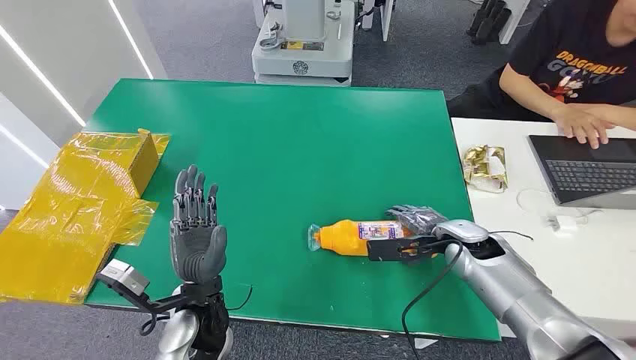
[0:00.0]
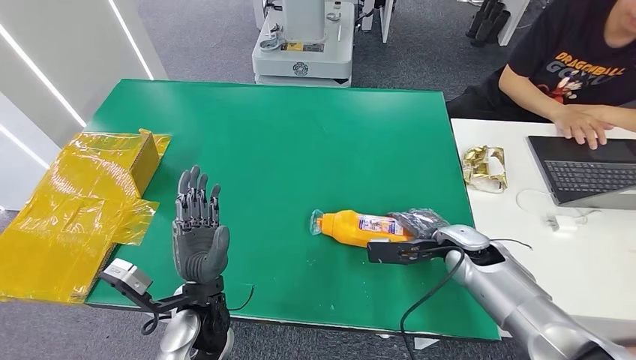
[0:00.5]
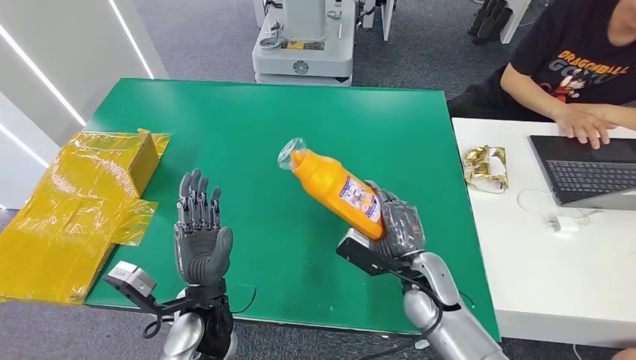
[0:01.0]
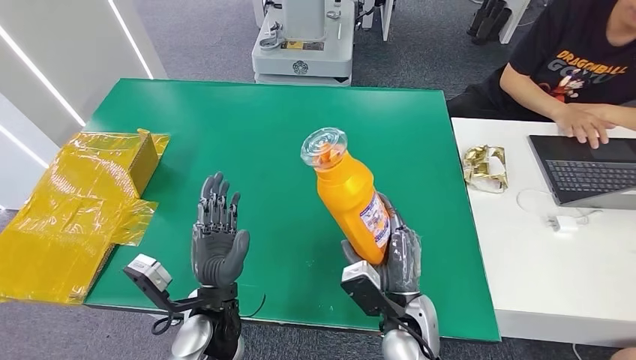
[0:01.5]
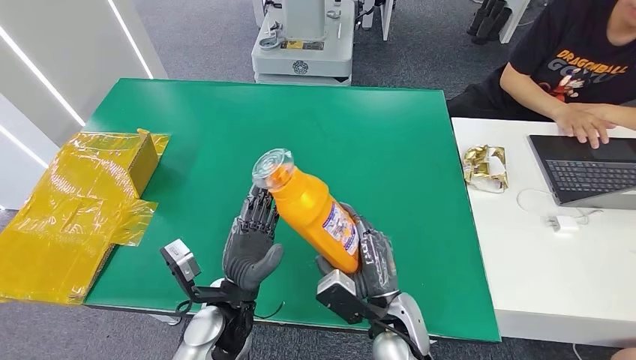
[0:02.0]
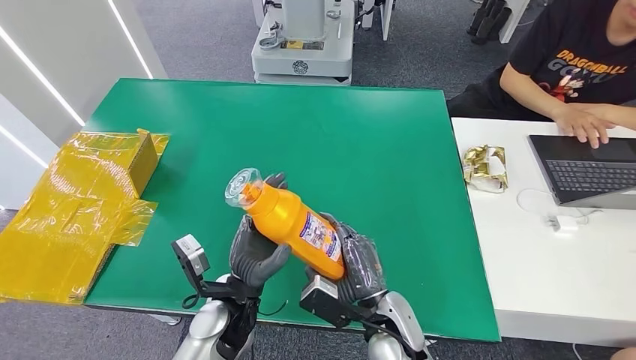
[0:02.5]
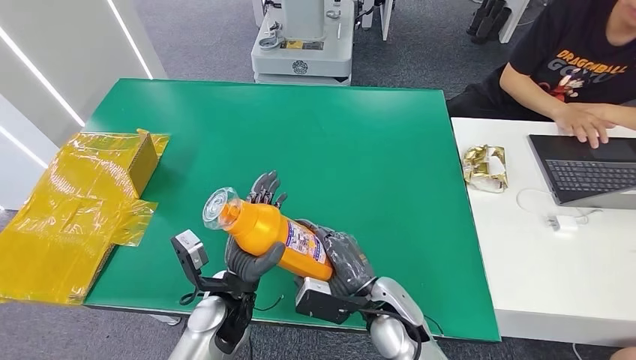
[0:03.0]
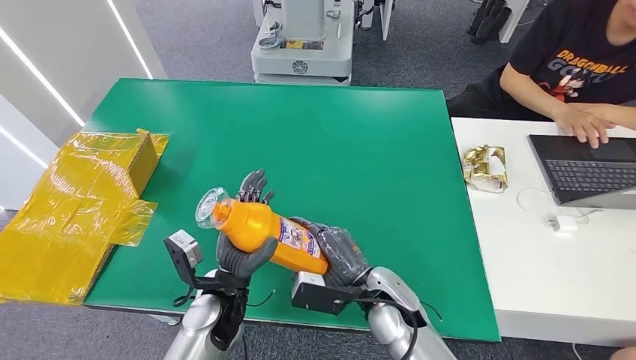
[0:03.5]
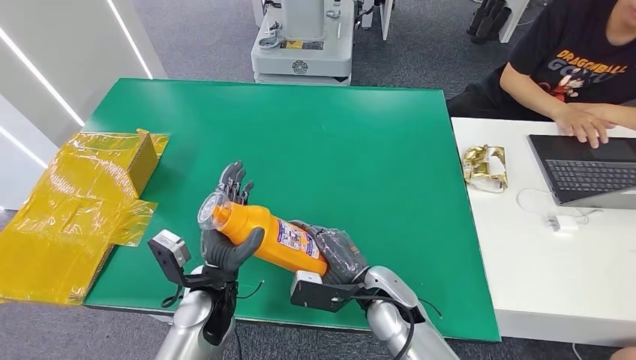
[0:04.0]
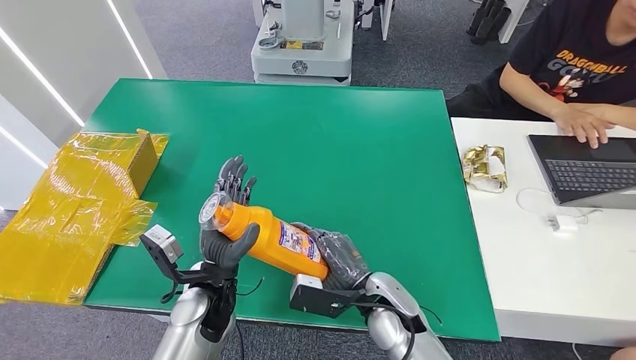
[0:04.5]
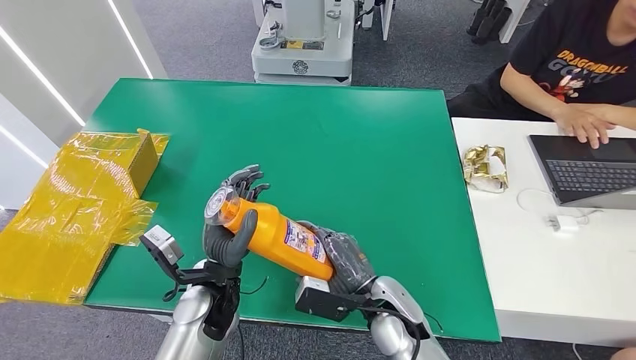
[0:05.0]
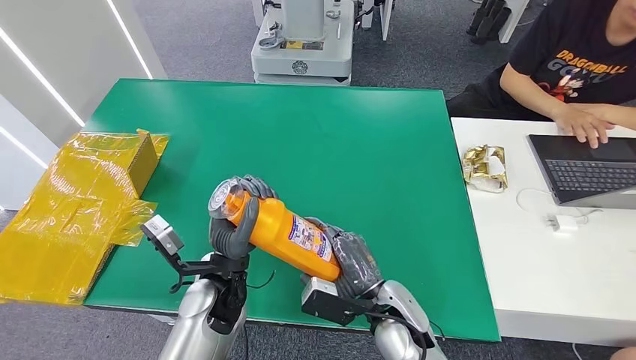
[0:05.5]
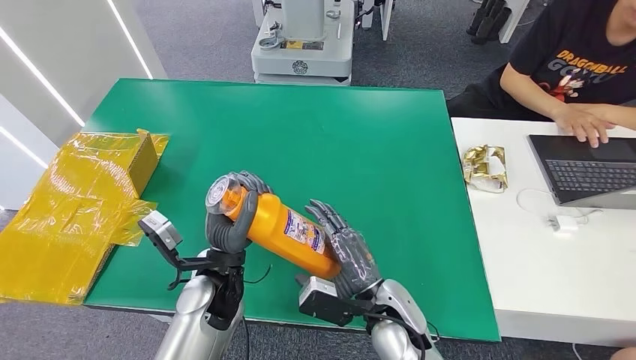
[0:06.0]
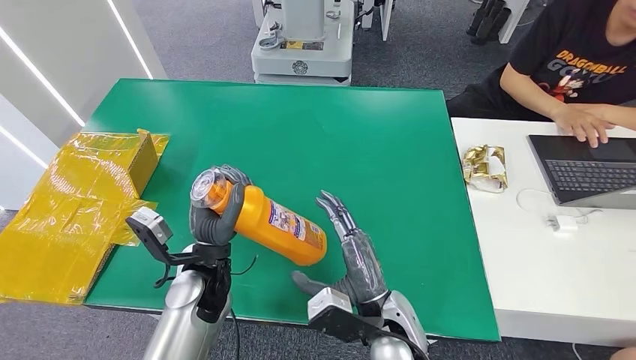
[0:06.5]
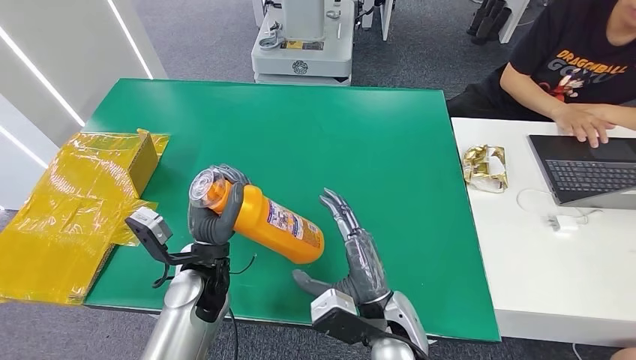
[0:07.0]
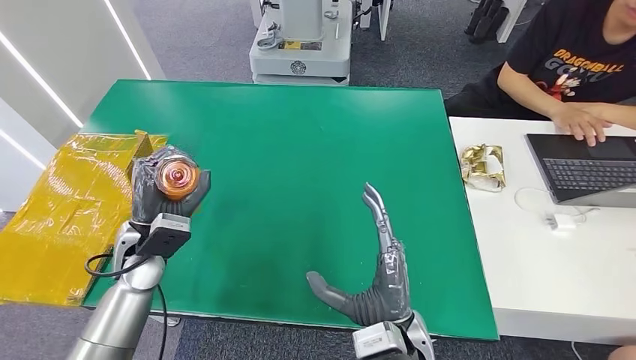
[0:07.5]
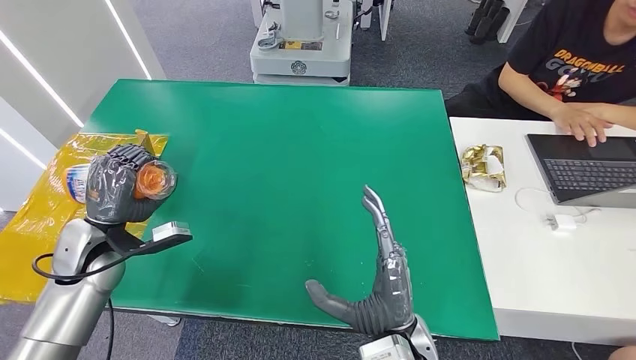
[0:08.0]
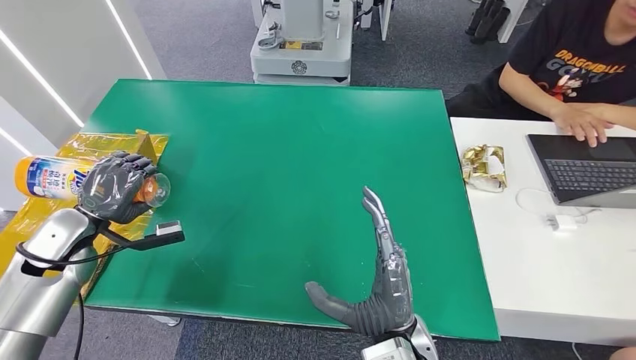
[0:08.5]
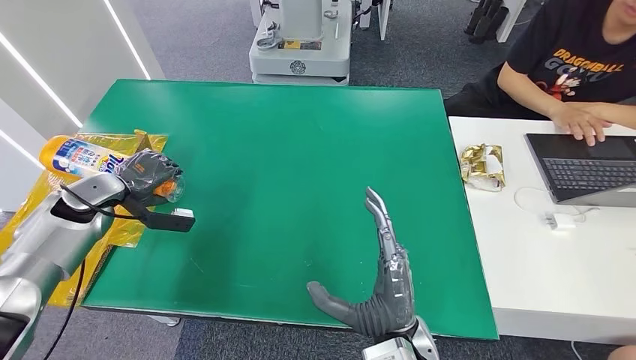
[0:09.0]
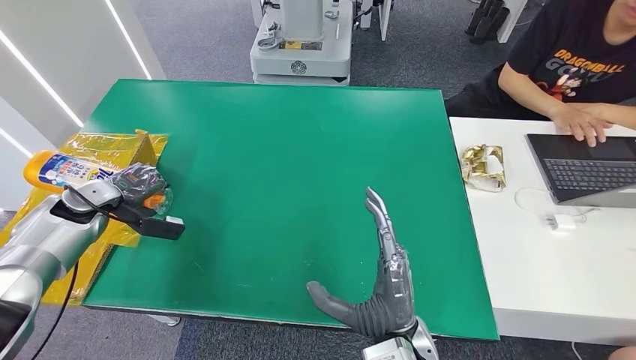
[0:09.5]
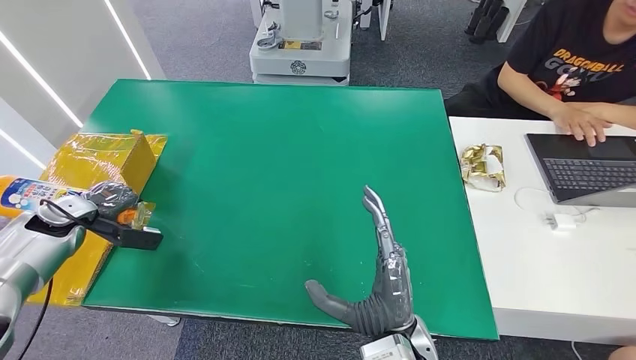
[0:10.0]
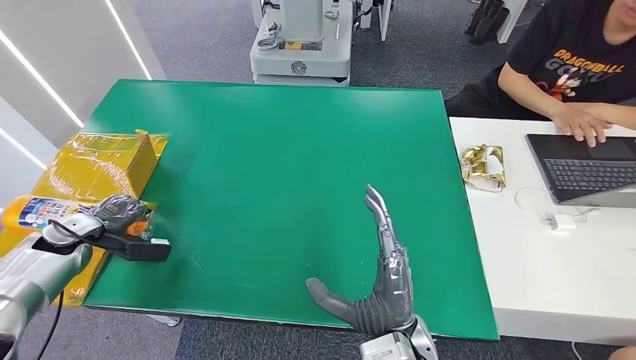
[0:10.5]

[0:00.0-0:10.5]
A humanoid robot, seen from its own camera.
Step, 0:00.0 to 0:02.5: Pick up the bottle from the table.
0:04.0 to 0:06.5: The right hand moves backward, some 5 cm.
0:06.5 to 0:08.5: The left hand heads to the left, covering approximately 25 cm.
0:08.5 to 0:10.5: The left hand moves to the left and downward, approximately 10 cm.

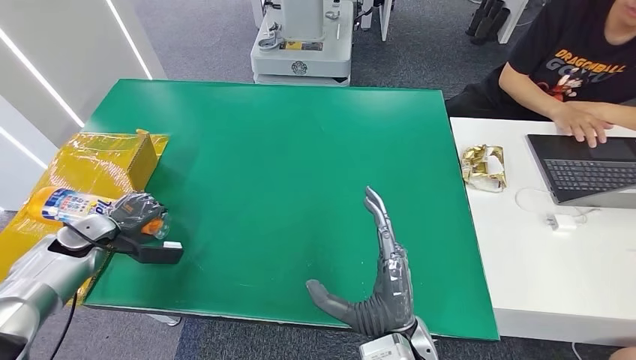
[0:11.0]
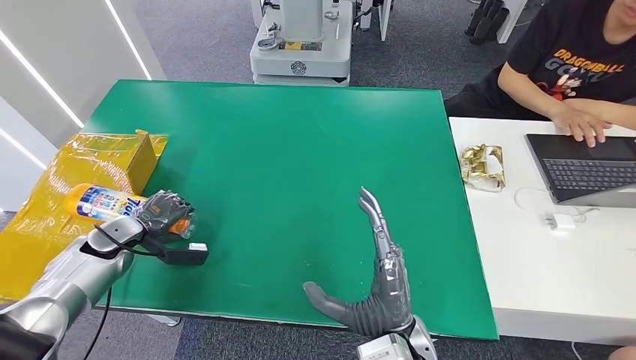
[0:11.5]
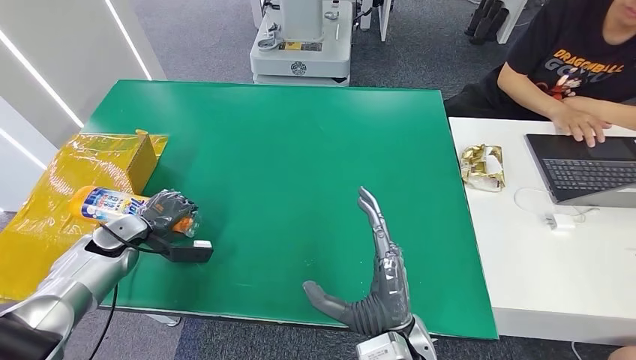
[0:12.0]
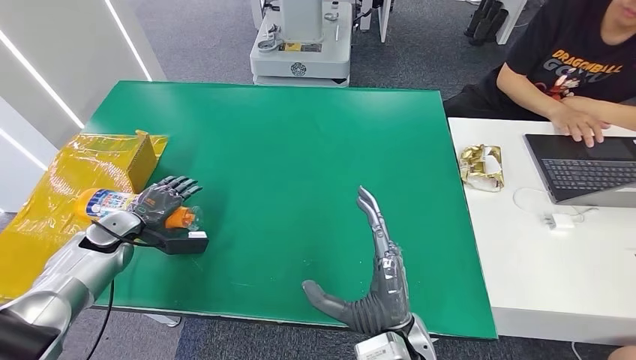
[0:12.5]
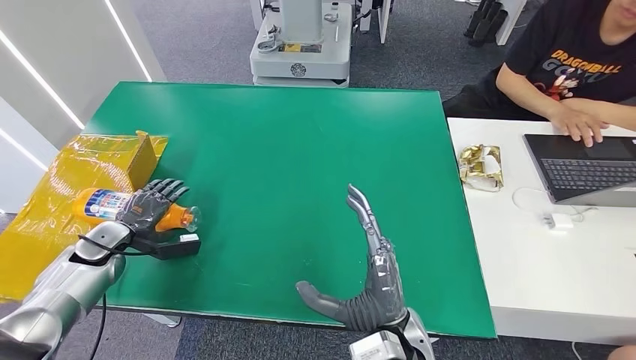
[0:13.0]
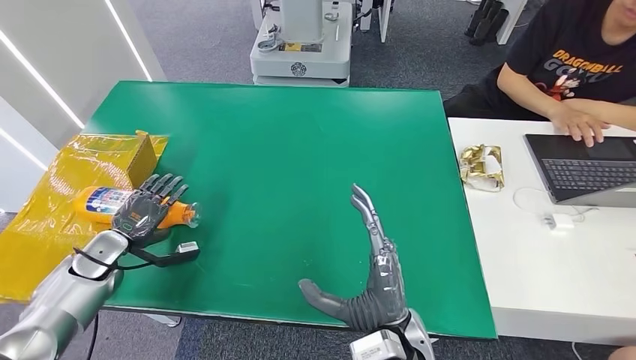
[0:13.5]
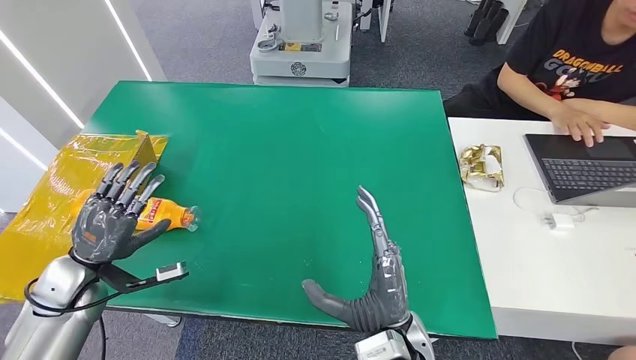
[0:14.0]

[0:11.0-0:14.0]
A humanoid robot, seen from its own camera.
Step, 0:11.0 to 0:14.0: Turn the bottle to the front side.
0:11.0 to 0:12.5: The left hand moves roughly 5 cm.
0:12.5 to 0:14.0: The left hand travels backward by roughly 10 cm.

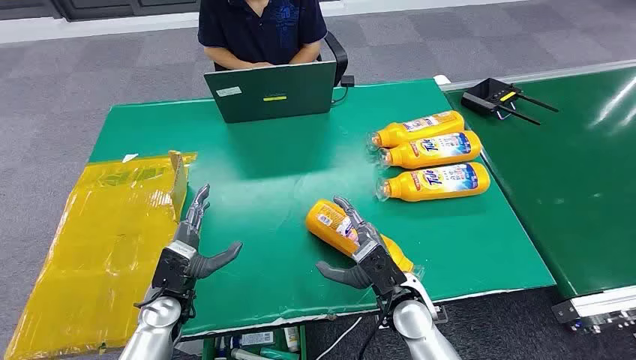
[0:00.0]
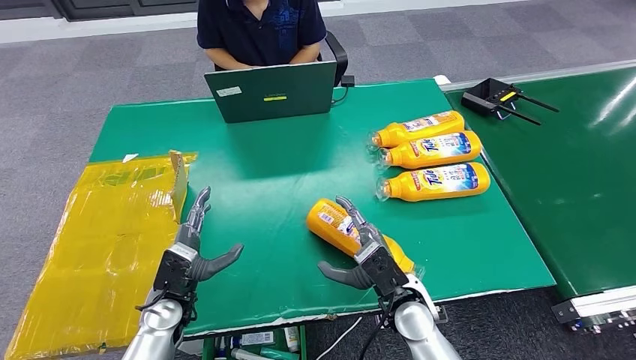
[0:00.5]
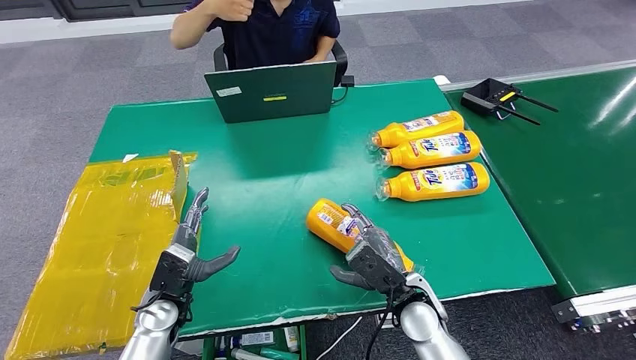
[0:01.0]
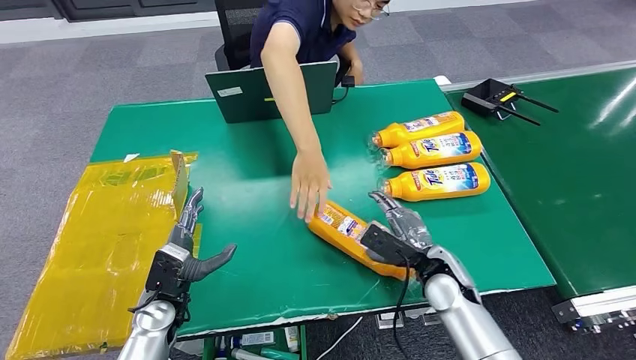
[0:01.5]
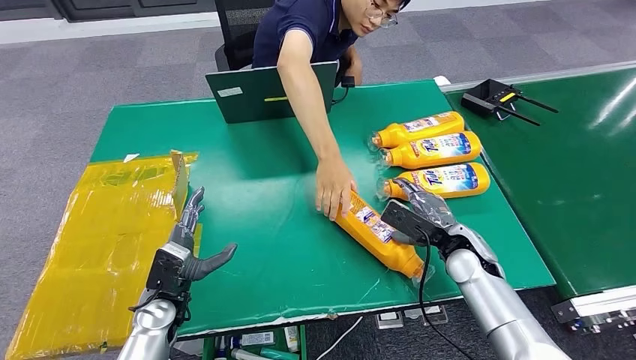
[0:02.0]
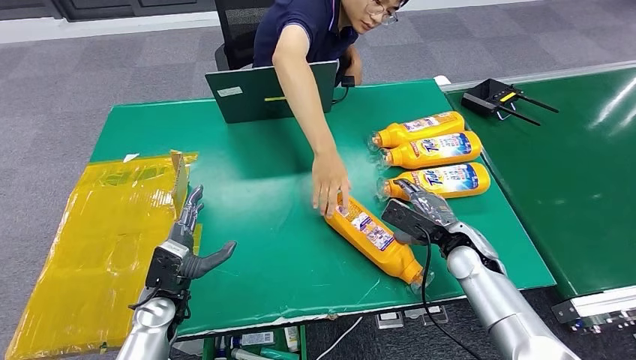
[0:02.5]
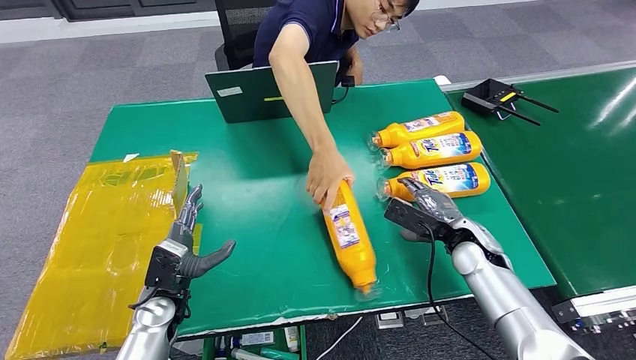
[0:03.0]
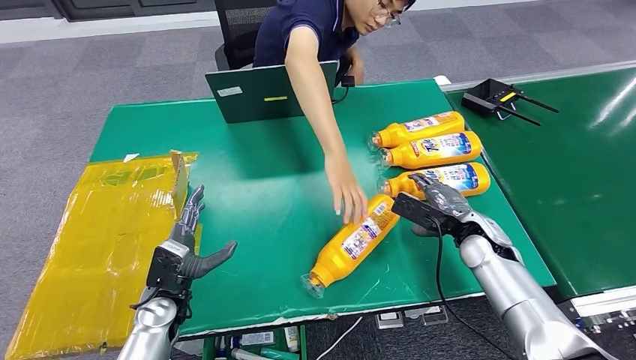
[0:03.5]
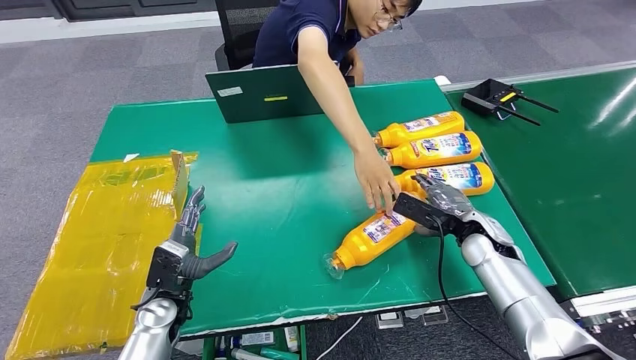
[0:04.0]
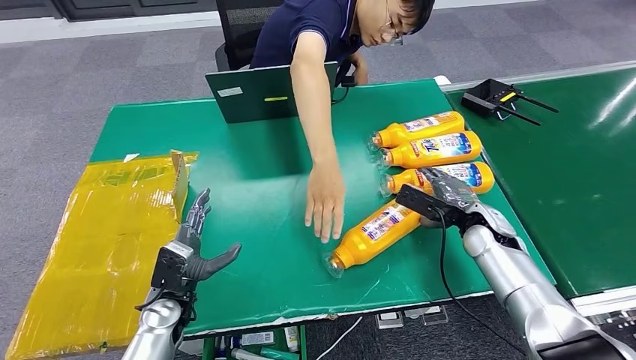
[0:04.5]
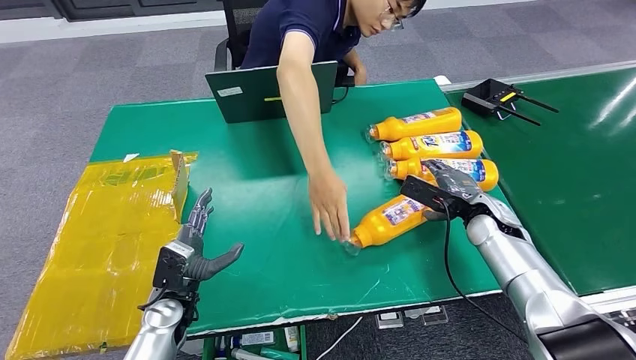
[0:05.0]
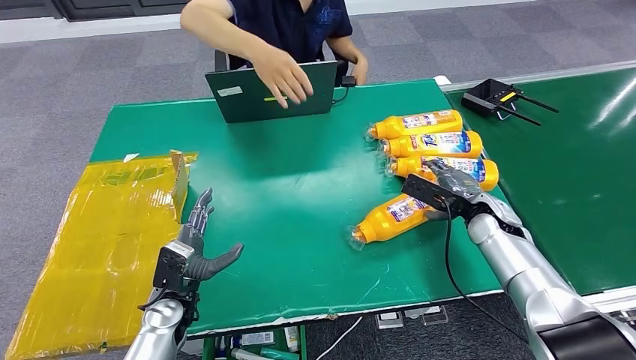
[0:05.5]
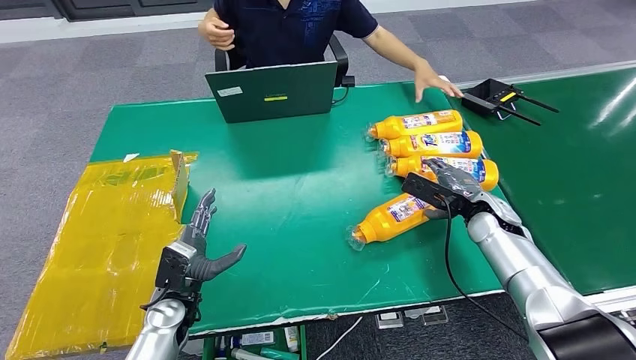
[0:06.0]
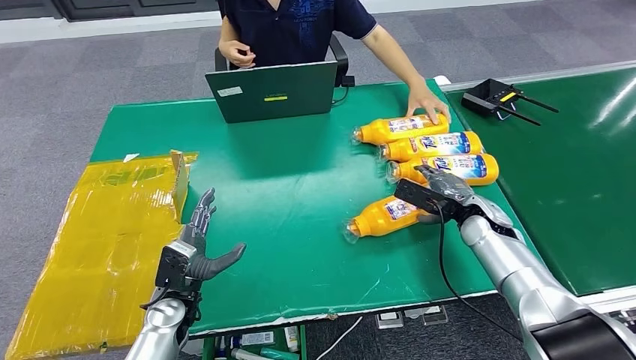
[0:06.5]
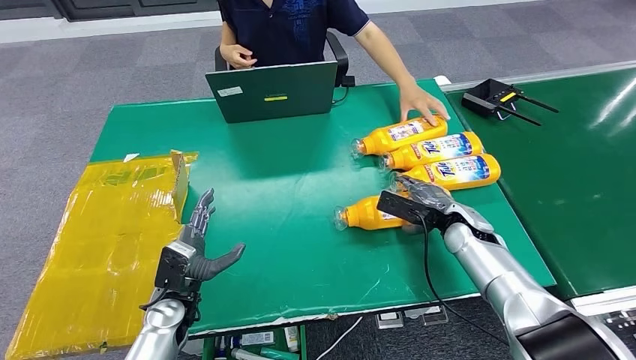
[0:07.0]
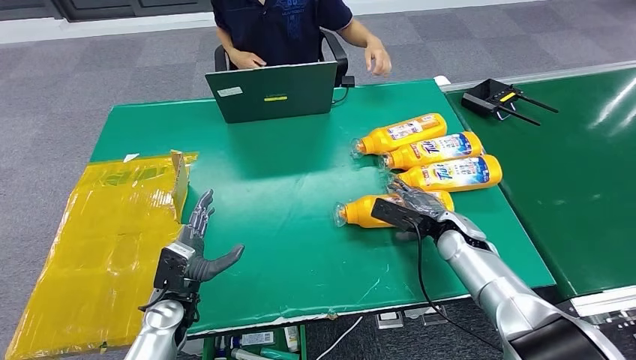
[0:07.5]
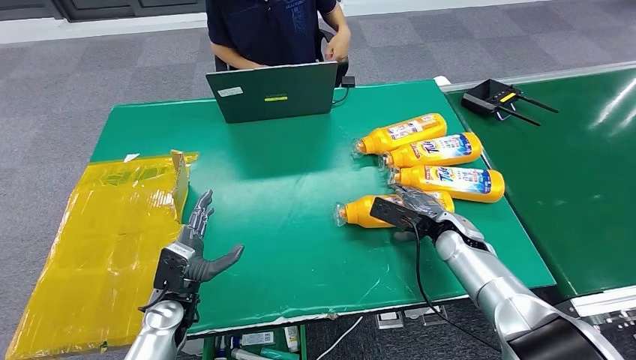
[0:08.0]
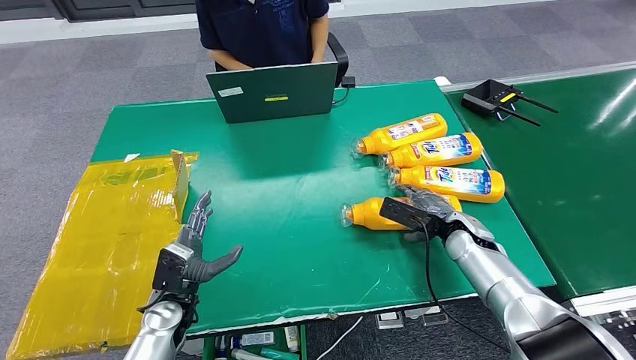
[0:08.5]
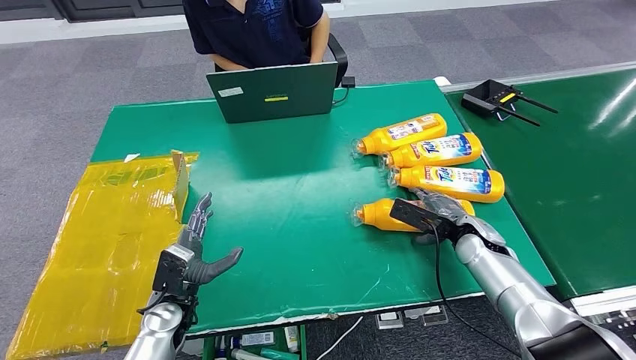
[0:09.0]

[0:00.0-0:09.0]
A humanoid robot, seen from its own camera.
0:02.0 to 0:04.5: The right hand changes place by approximately 5 cm.
0:07.0 to 0:09.0: There are only small adjustments of the hands.
